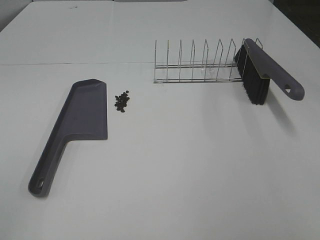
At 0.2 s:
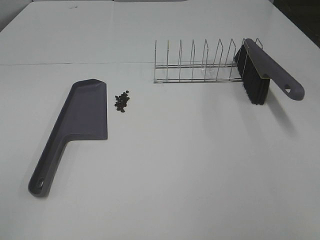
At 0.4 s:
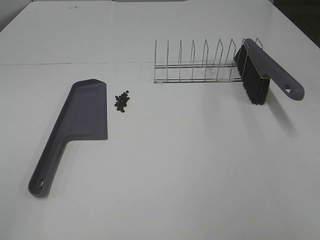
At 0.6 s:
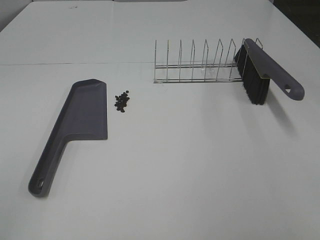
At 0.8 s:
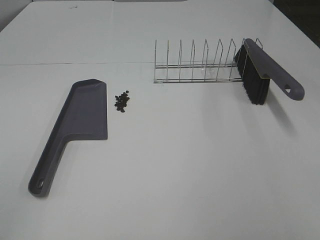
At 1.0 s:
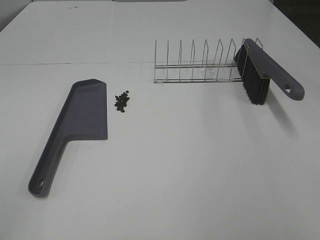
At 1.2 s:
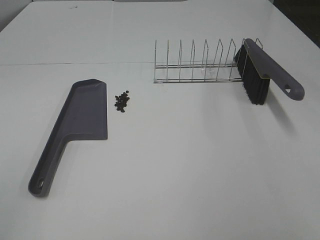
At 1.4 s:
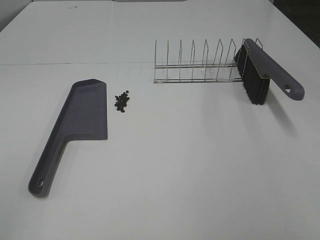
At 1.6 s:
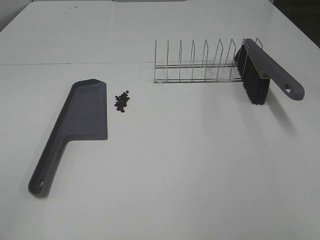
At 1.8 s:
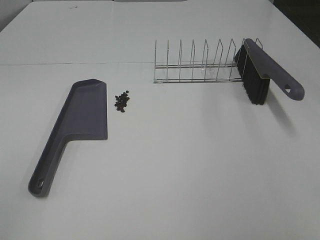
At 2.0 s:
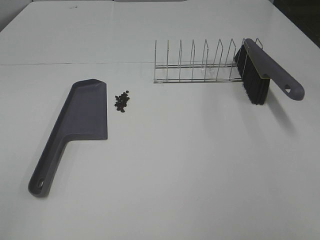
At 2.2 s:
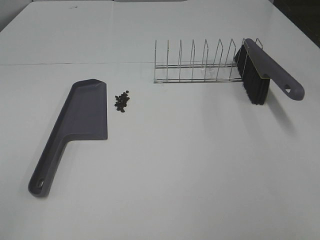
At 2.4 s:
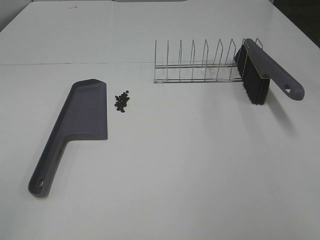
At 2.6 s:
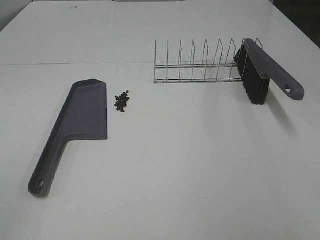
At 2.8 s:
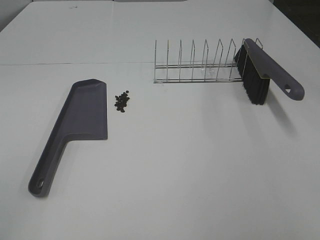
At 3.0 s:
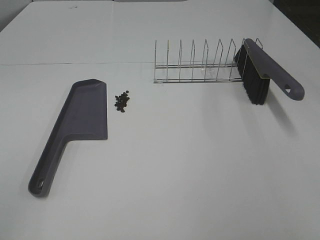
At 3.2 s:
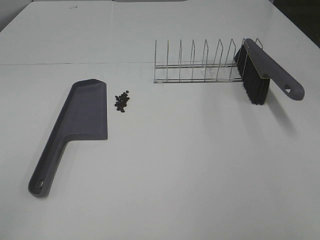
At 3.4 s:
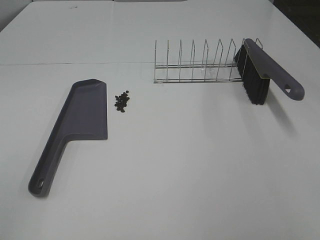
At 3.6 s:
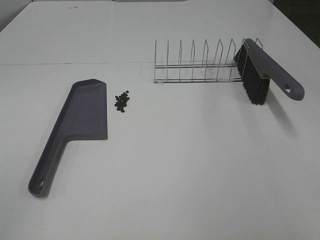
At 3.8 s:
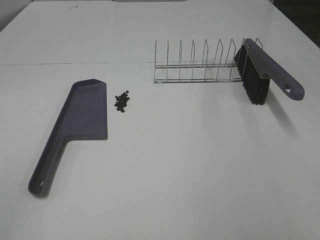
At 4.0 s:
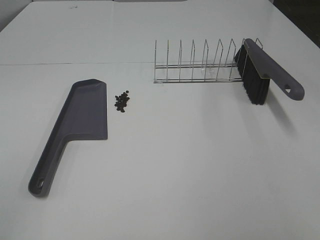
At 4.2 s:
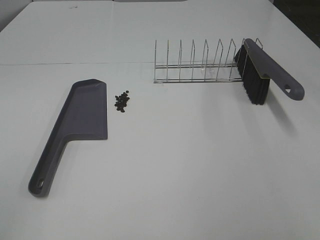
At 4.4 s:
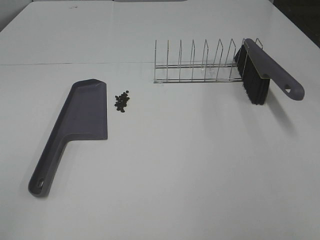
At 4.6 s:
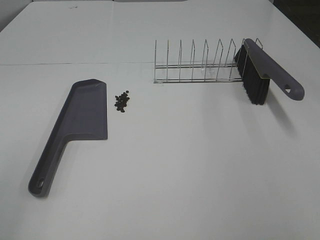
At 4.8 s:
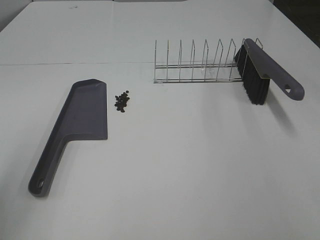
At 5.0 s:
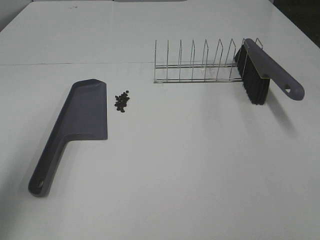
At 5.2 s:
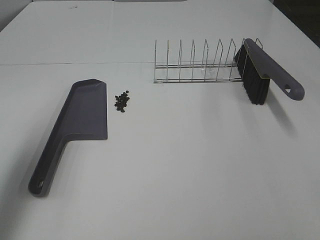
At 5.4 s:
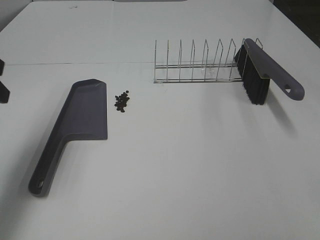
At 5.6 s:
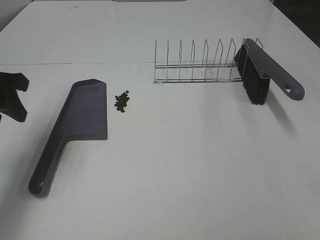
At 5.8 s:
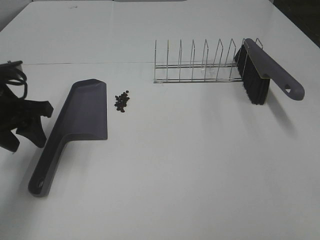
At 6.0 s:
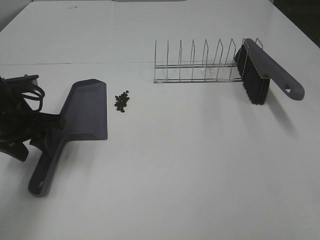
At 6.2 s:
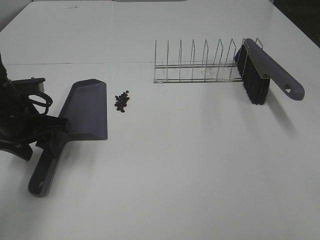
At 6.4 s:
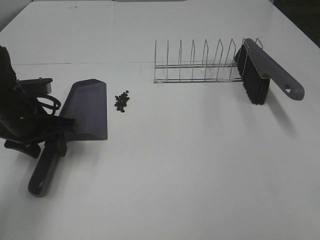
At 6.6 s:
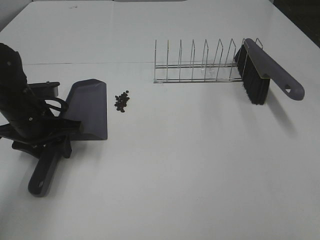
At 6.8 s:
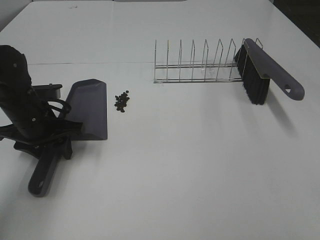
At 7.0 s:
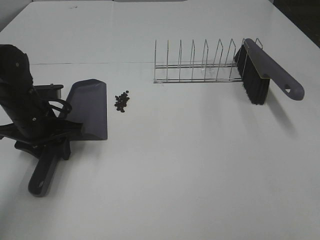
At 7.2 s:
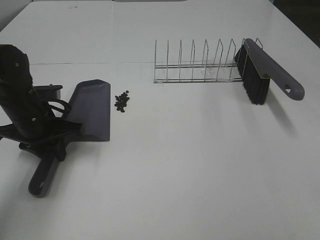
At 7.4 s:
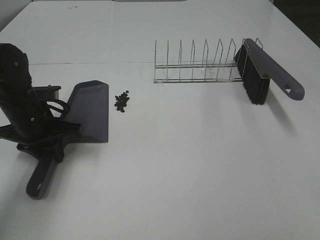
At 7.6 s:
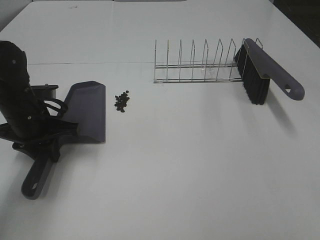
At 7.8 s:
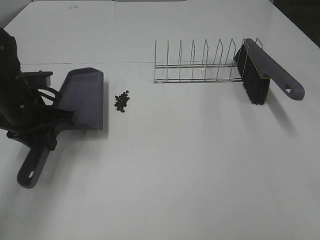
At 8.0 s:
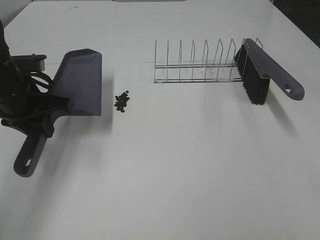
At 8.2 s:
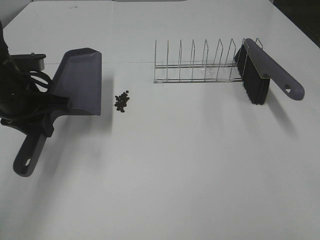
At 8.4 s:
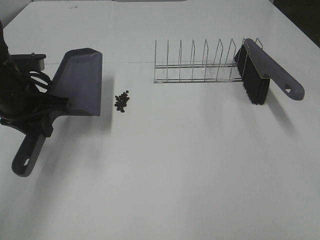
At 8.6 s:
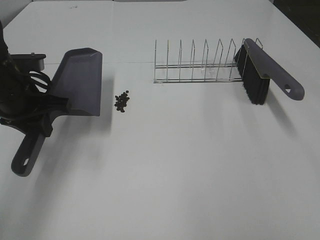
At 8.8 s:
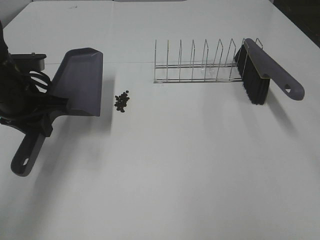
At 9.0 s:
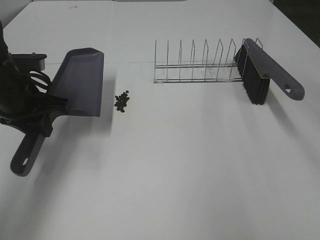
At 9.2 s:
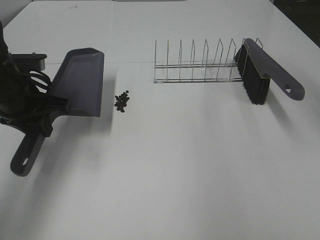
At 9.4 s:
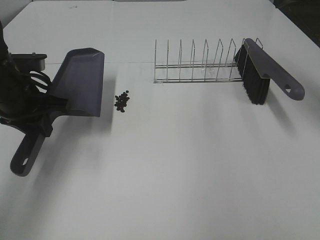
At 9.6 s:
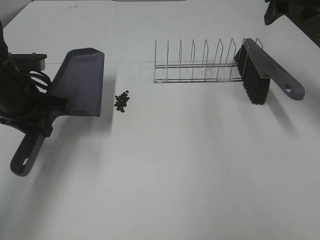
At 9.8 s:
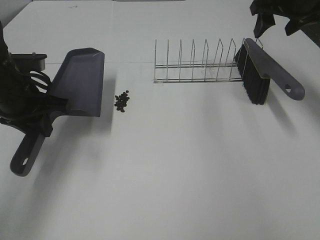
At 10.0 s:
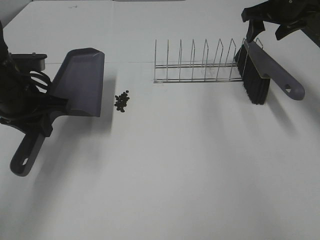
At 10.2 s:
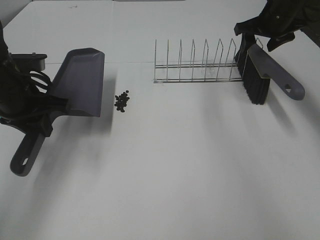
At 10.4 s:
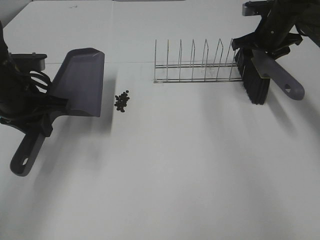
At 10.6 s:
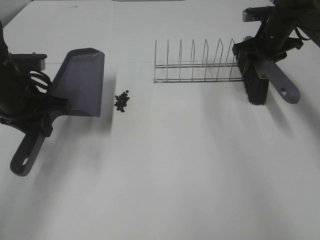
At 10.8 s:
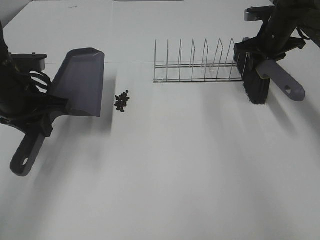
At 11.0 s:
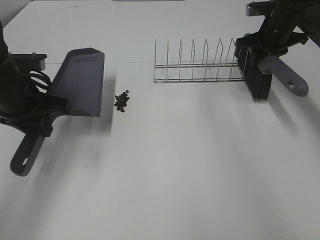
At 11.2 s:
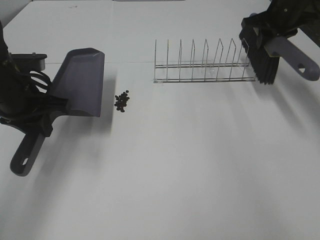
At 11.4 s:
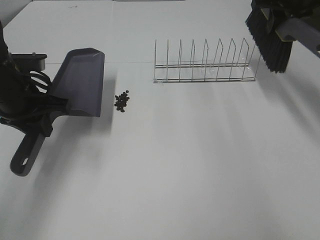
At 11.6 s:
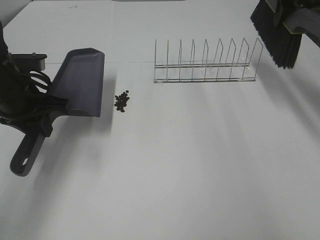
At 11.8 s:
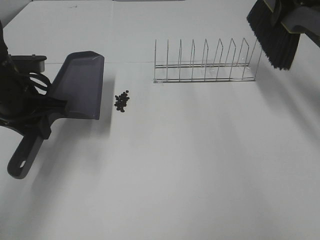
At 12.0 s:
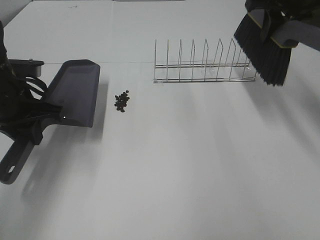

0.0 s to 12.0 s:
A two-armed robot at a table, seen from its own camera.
Task of the whole recording: Sweep Coffee Bean.
Step, 0.0 to 7.2 s: Left hand: grab the dustpan.
Step, 8.4 to 10.6 s: Right hand:grab the broom.
0.0 to 4.4 s: Neither gripper changes place.
4.4 to 6.0 s: The left gripper shifts some 35 cm forward and downward.
6.0 to 7.6 s: The left gripper closes up.
7.6 to 9.0 s: The left gripper is displaced upward by roughly 5 cm.
9.0 to 10.4 s: The right gripper is displaced forward and downward by some 35 cm.
10.4 to 12.0 s: The right gripper heads upward and backward, covering approximately 15 cm, and closes its fingers.

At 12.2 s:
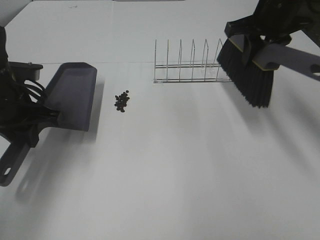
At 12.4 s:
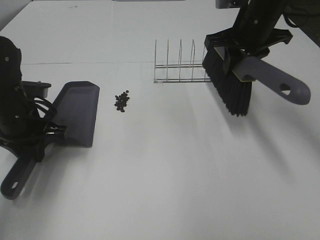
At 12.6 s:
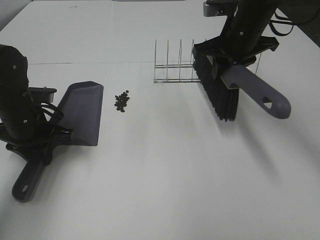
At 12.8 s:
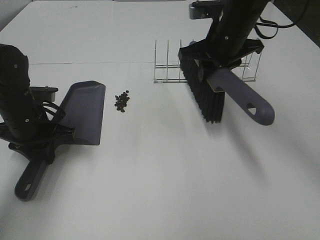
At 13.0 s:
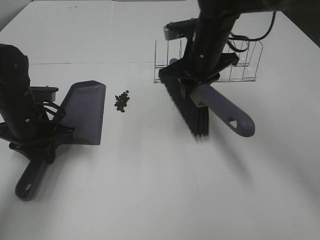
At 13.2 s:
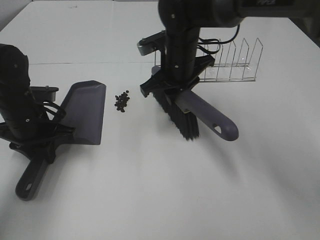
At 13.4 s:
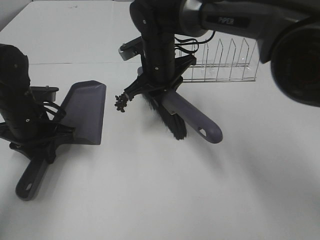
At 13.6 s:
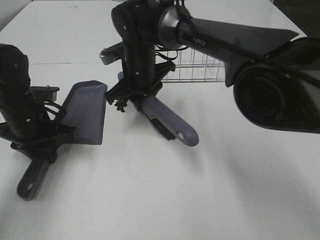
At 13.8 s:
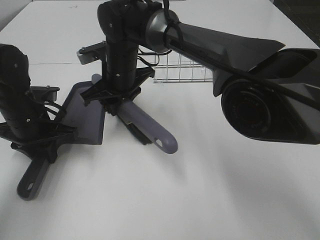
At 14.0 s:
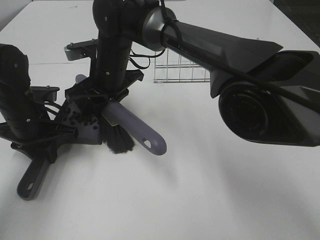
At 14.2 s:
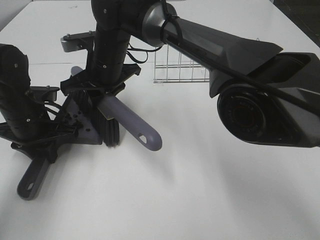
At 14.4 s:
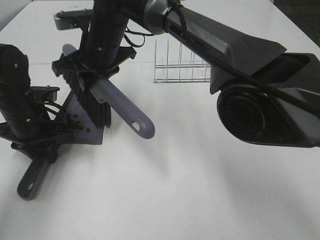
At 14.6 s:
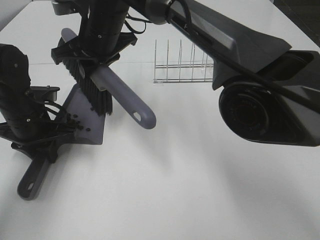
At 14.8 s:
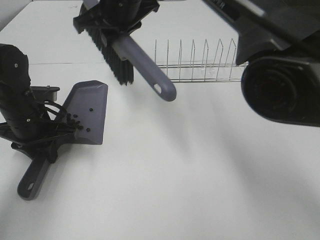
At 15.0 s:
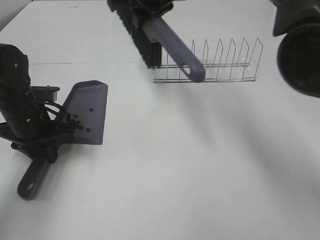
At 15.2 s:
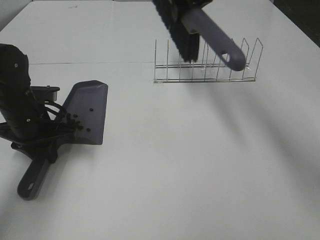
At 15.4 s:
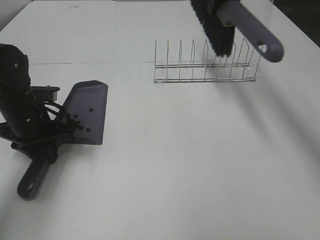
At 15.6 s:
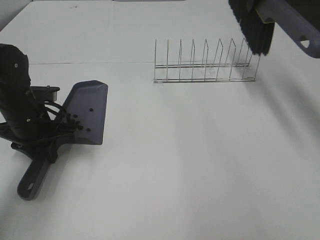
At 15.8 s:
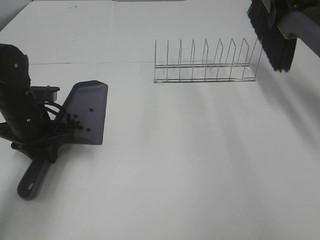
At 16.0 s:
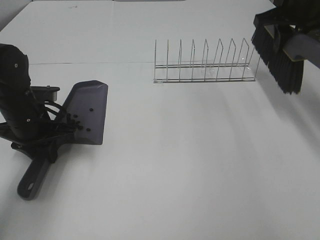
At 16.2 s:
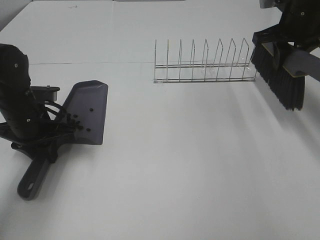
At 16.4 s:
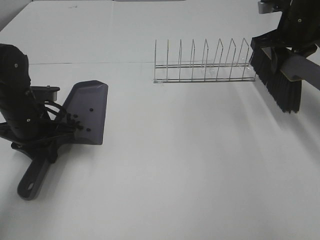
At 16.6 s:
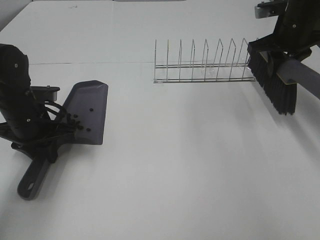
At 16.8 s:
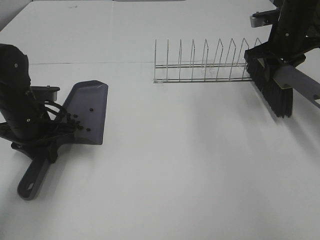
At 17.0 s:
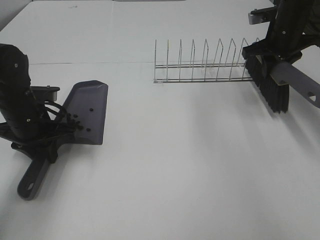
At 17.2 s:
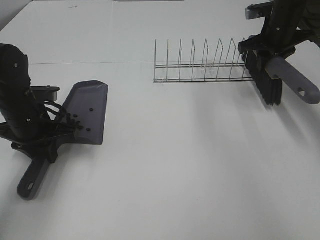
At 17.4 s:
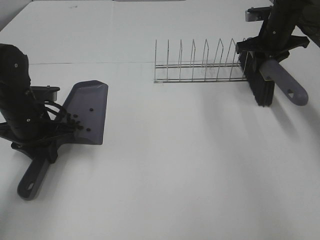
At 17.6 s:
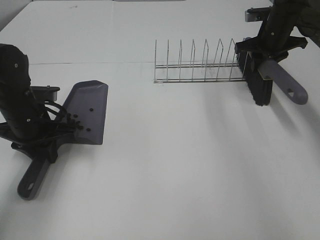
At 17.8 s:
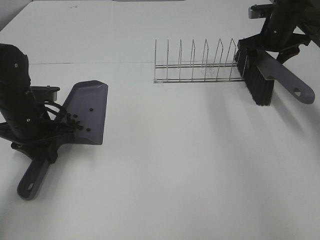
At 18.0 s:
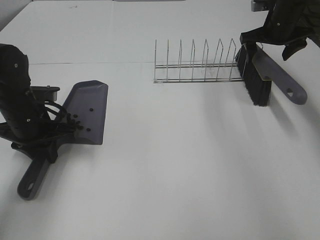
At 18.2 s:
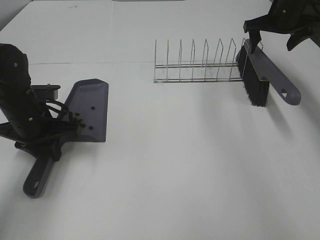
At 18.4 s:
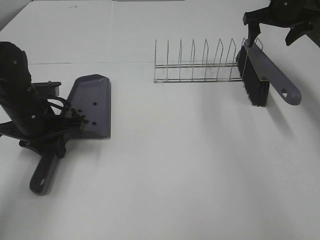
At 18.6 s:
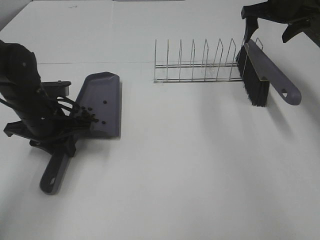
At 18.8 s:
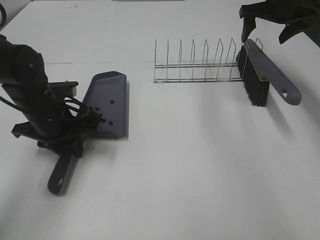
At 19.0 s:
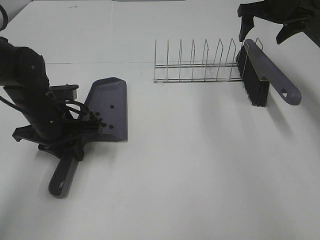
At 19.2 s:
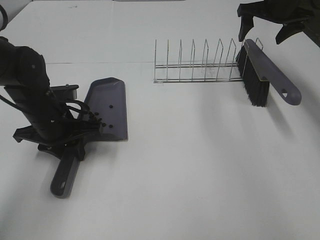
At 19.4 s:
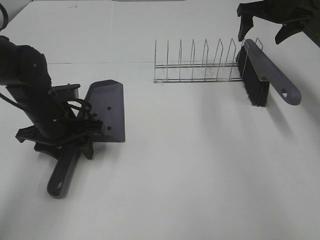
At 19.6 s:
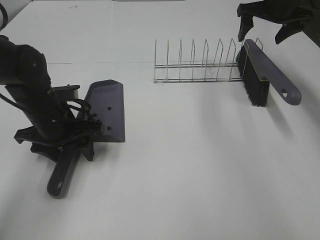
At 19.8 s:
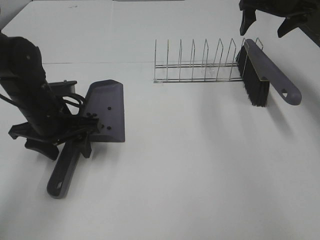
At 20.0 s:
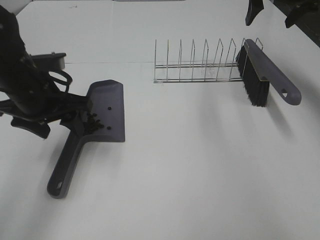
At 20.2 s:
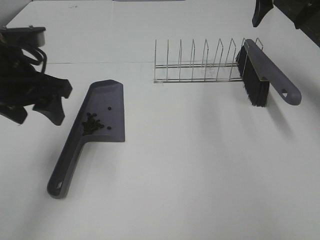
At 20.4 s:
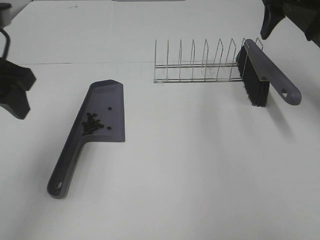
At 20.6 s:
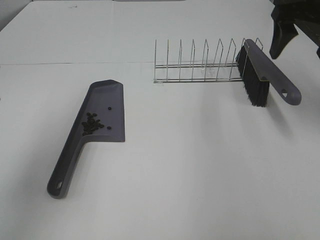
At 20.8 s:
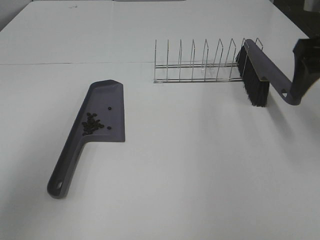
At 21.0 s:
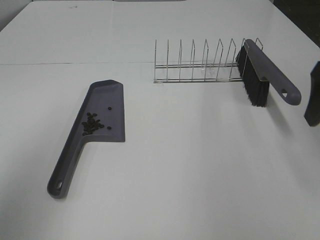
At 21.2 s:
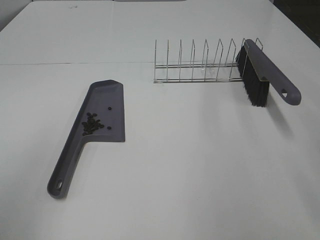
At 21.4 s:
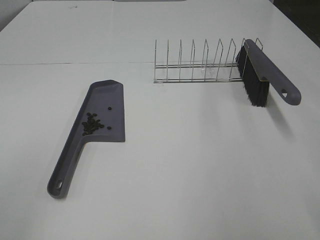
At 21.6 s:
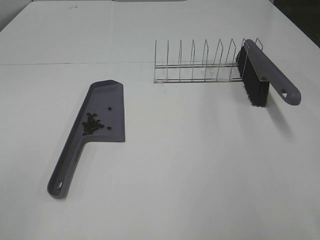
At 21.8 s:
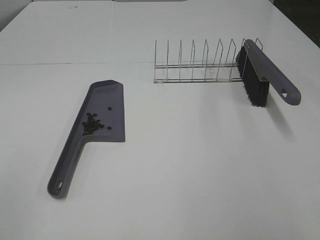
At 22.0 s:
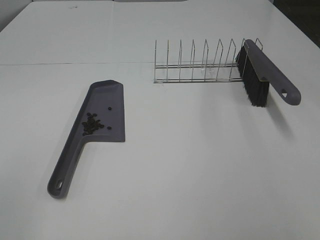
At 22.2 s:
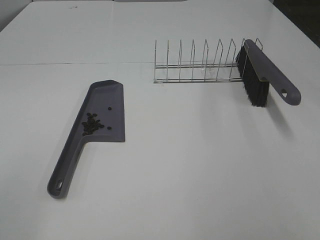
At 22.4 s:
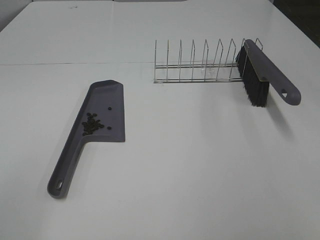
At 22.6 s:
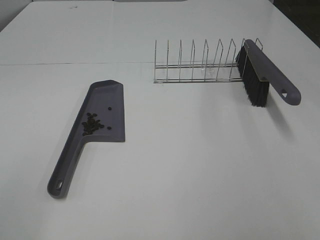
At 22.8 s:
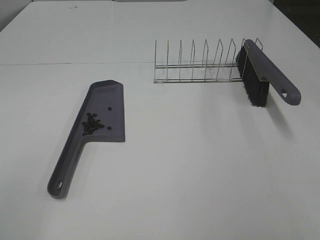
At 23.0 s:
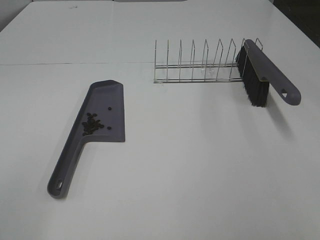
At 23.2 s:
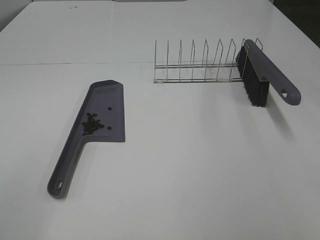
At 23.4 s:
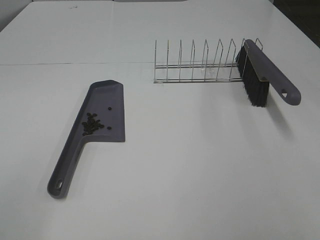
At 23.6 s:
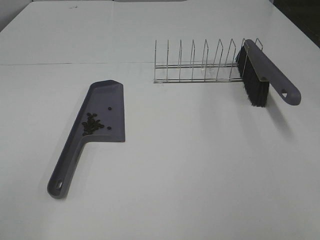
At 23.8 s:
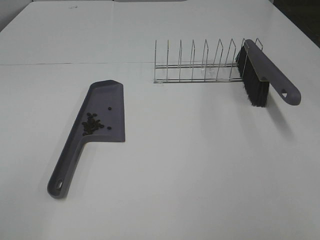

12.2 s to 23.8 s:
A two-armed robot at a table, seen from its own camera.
Task of the whole recording: Sweep Coffee Bean.
Step, 12.2 to 14.4 s: Right hand:sweep the coffee beans into the dustpan.
Step, 14.6 to 18.2 s: Right hand:place the broom on the rack.
Step, 18.4 to 19.8 s: Left hand:place the dustpan on the table.
12.2 to 13.6 s: The left gripper goes approximately 5 cm downward; the right gripper shifts some 25 cm to the left and downward.
13.6 to 15.0 s: The right gripper is displaced upward by about 15 cm.
15.0 to 16.6 s: The right gripper goes about 25 cm to the right.
16.6 to 18.0 s: The right gripper travels forward by approximately 10 cm, and opens.
18.0 to 19.4 s: The left gripper opens; the right gripper changes place by about 5 cm.
19.4 to 21.0 s: The left gripper heads upward, backward and to the left, covering roughly 35 cm; the right gripper moves backward, approximately 30 cm.
21.0 to 22.4 s: The left gripper goes some 10 cm backward and downward. Meanwhile the right gripper shifts some 25 cm backward.
22.4 to 23.8 s: The two grippers keep their place.
